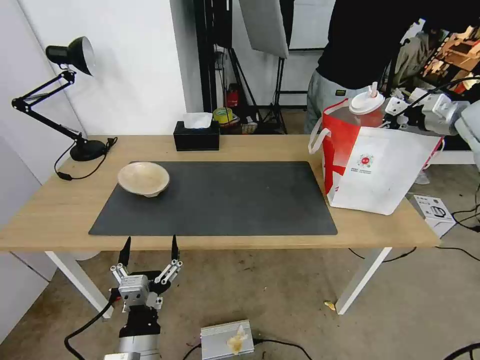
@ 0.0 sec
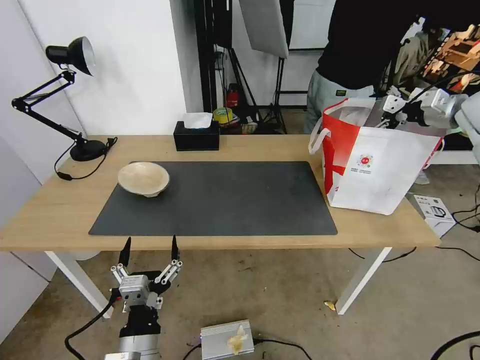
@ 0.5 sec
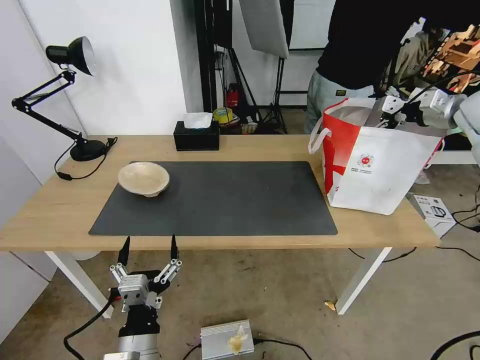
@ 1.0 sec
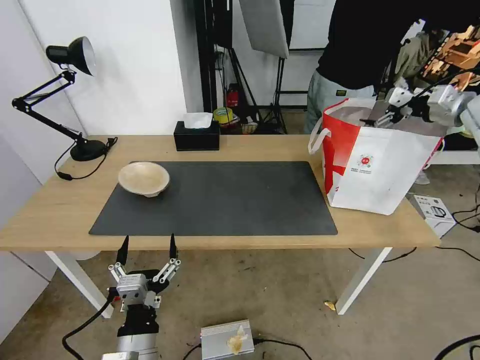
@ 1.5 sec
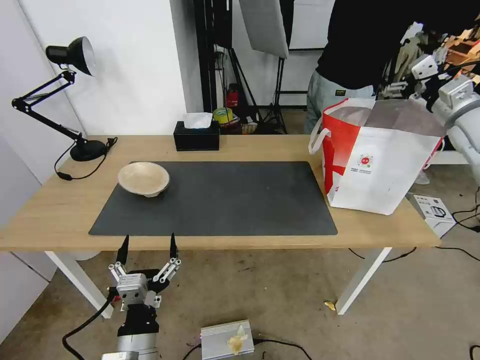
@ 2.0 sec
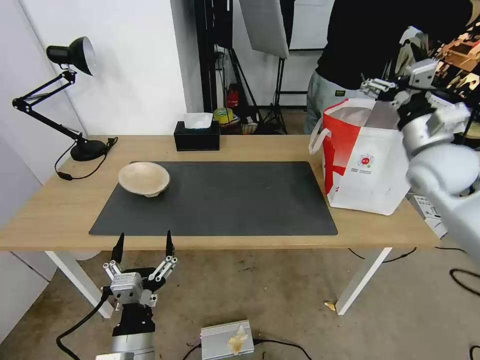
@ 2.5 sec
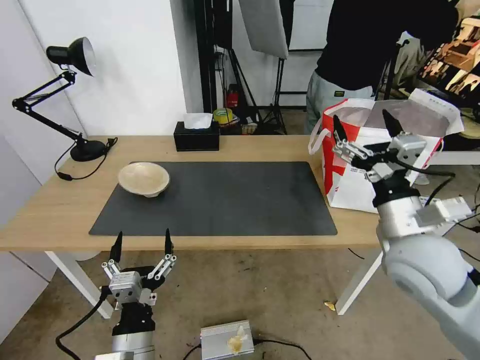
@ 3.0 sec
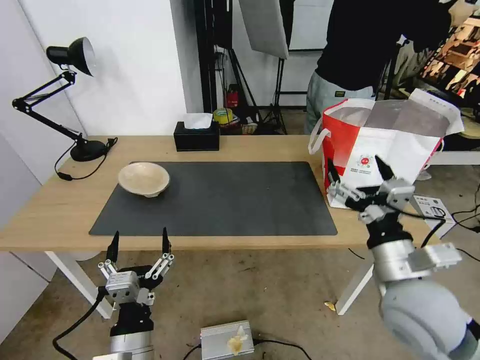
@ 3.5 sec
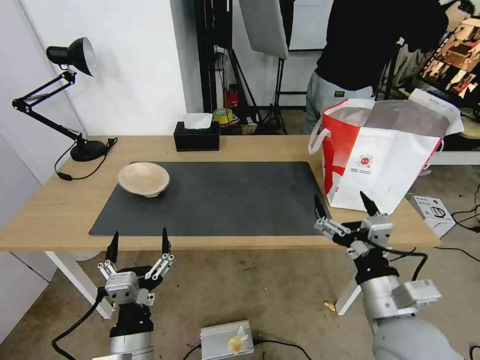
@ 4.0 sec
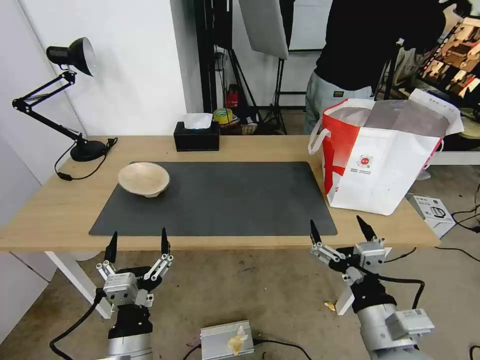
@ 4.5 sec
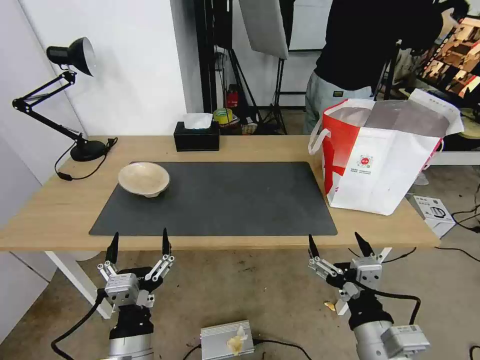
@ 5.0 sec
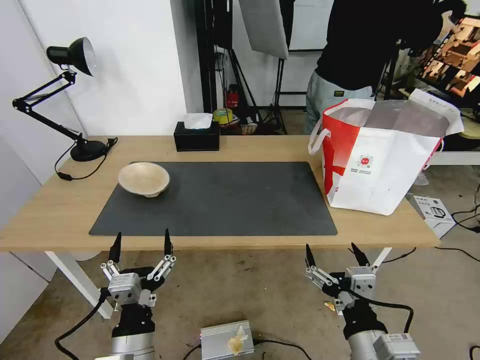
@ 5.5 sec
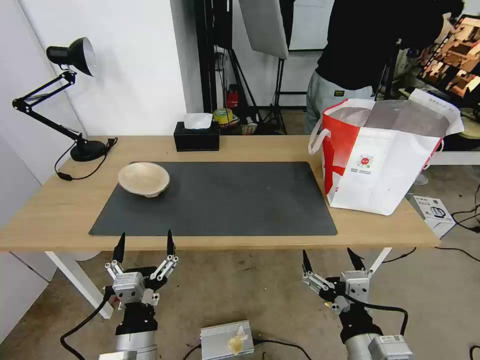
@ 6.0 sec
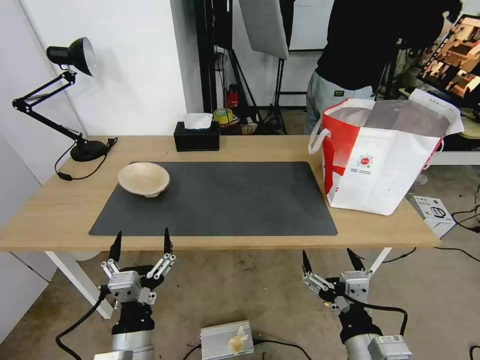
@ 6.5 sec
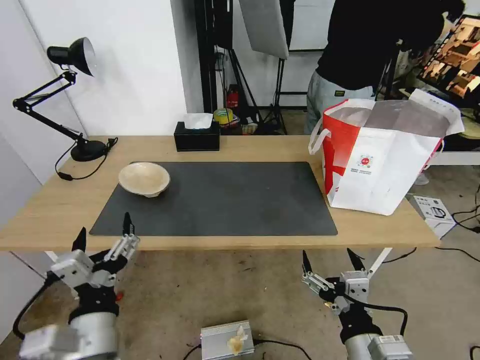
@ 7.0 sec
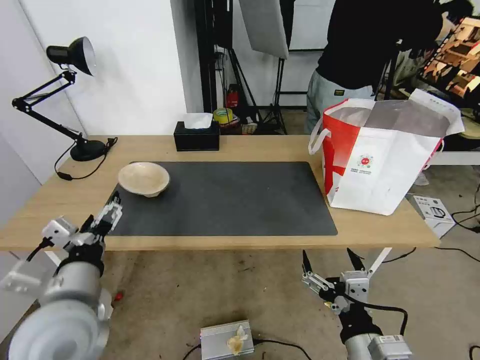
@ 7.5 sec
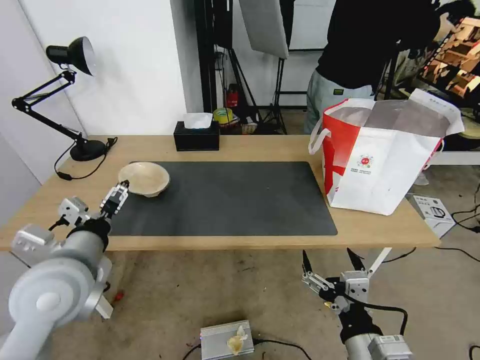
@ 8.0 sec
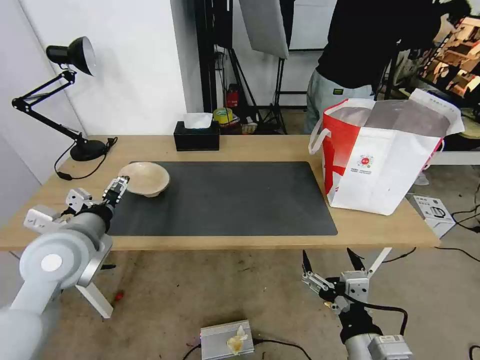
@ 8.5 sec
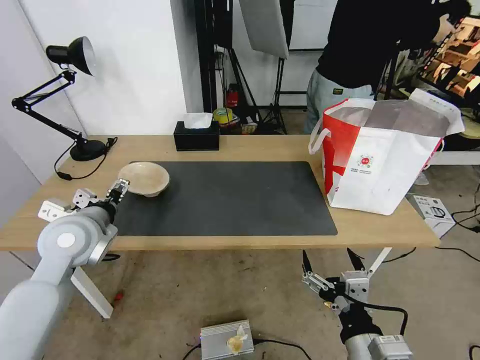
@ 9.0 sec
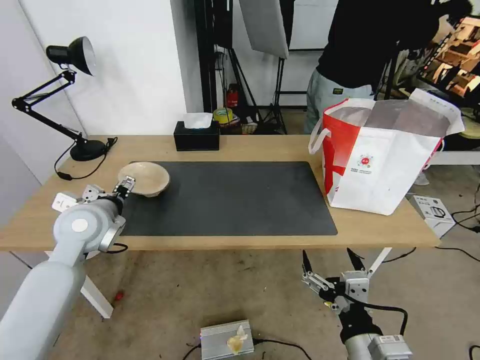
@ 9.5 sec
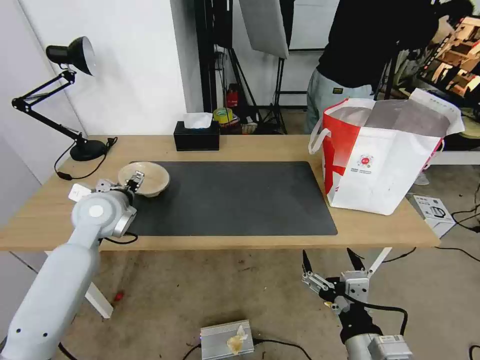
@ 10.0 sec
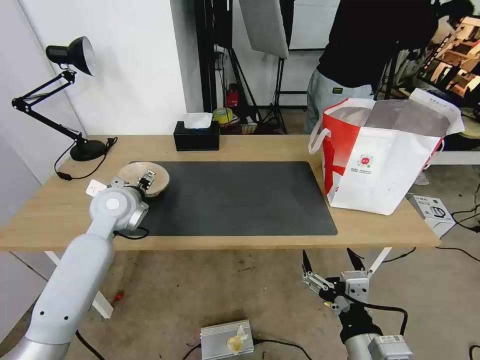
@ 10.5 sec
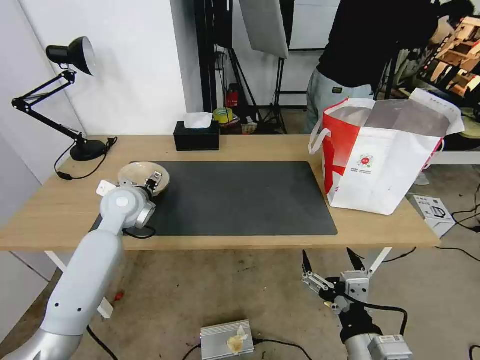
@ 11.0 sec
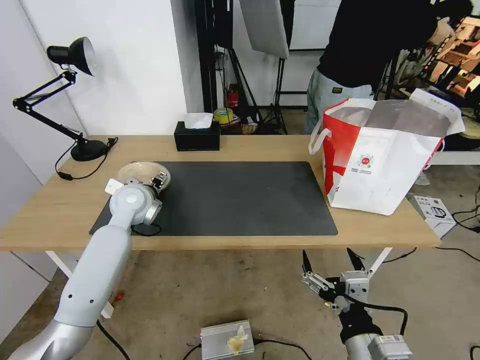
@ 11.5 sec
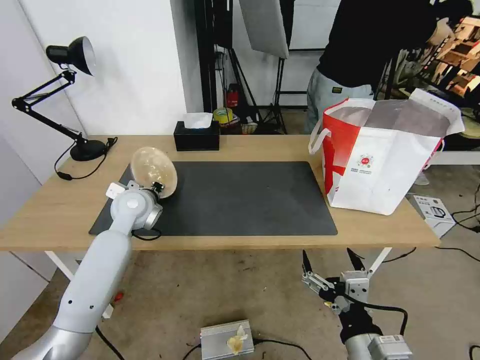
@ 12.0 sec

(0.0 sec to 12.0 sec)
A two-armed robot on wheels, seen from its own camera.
Task of the whole recording: Pick up the trash from the table and place it into the takeout bag.
2.0 sec - 4.0 sec: The right gripper travels backward, to the left and downward by some 40 cm.
4.0 sec - 6.0 sec: The right gripper is displaced backward by approximately 10 cm.
6.0 sec - 8.0 sec: The left gripper heads upward, forward and to the left, covering roughly 20 cm.
8.0 sec - 10.0 sec: The left gripper shifts roughly 15 cm forward.
10.0 sec - 12.0 sec: The left gripper travels forward by roughly 5 cm, and closes its fingers.

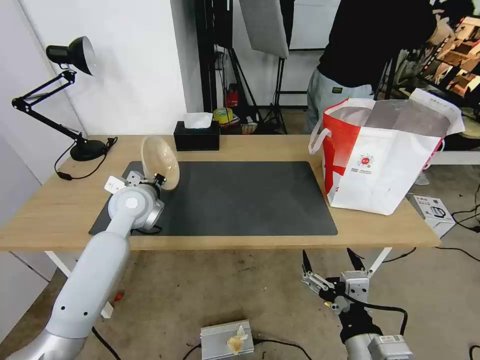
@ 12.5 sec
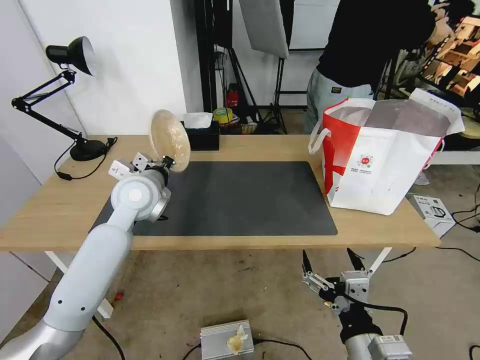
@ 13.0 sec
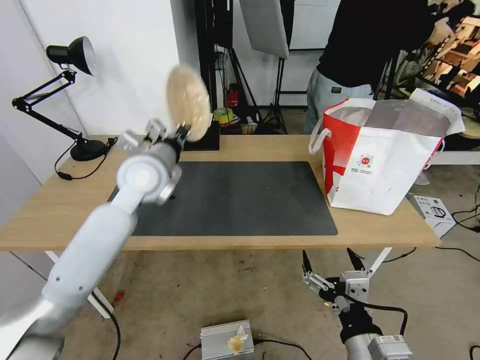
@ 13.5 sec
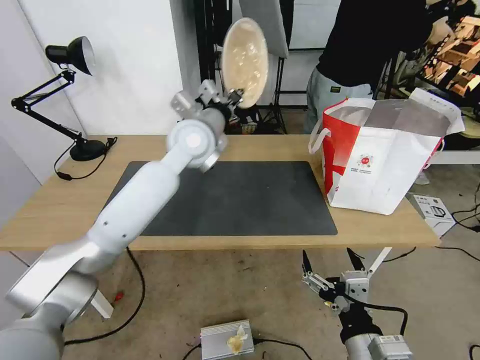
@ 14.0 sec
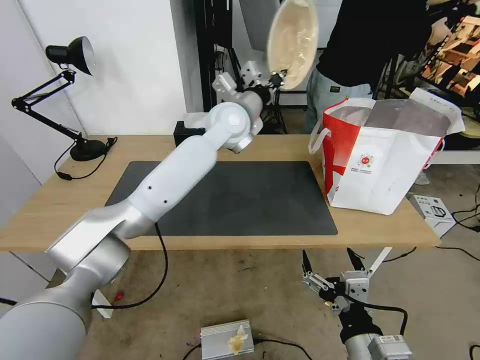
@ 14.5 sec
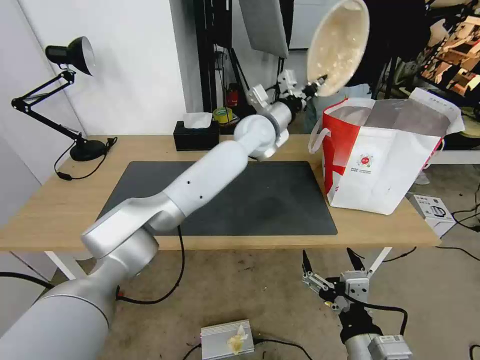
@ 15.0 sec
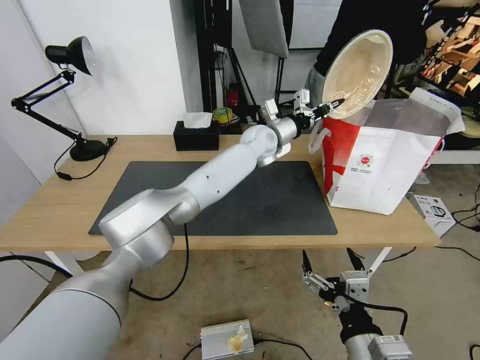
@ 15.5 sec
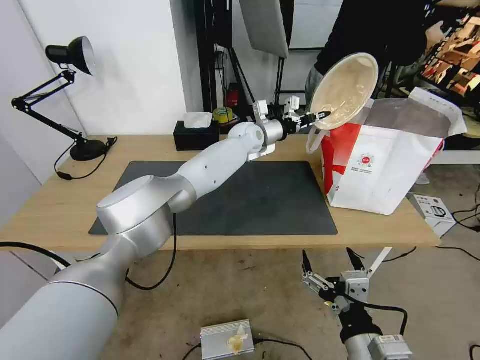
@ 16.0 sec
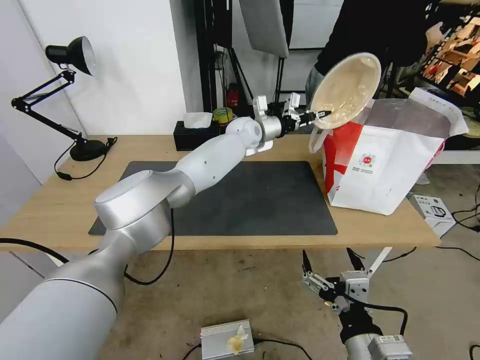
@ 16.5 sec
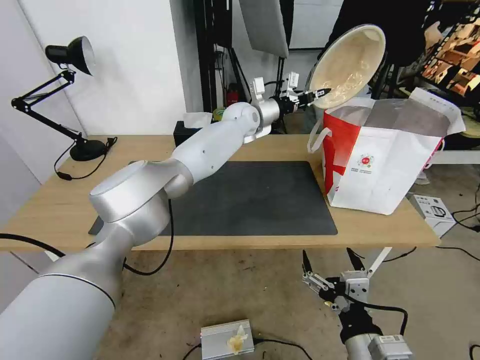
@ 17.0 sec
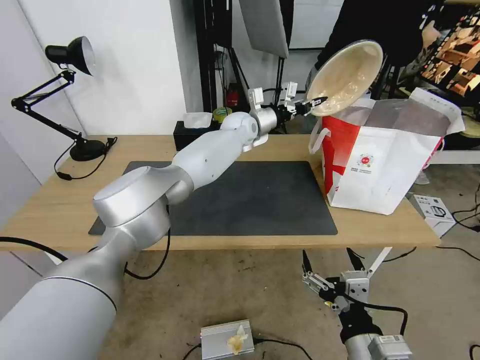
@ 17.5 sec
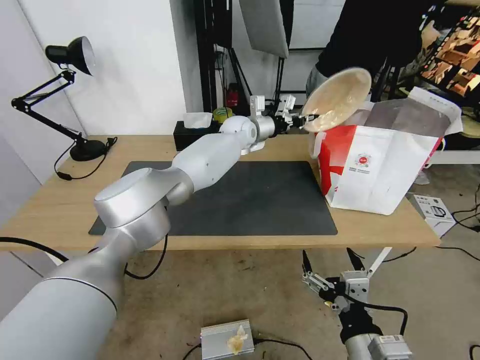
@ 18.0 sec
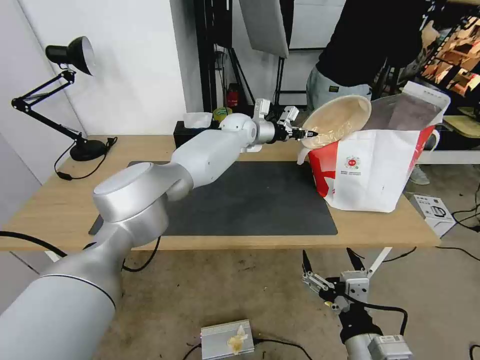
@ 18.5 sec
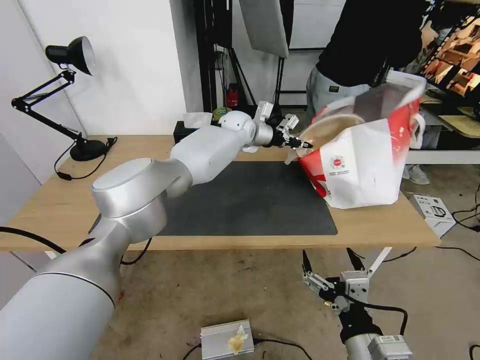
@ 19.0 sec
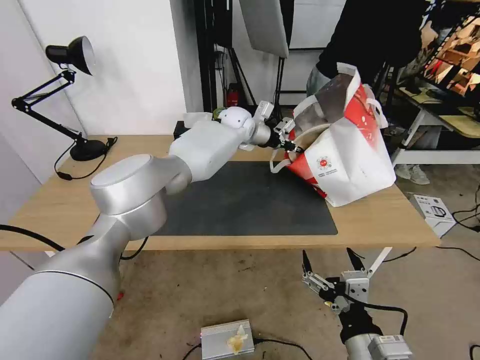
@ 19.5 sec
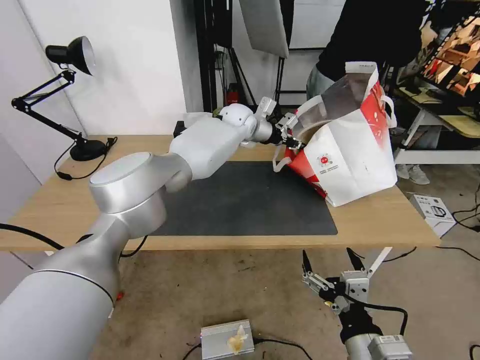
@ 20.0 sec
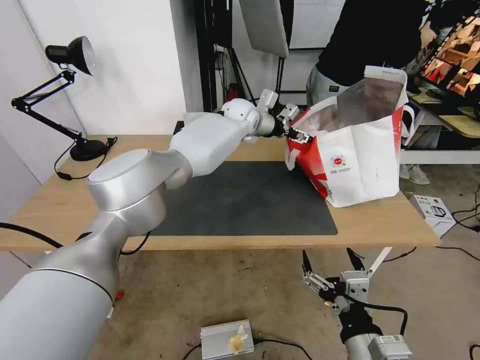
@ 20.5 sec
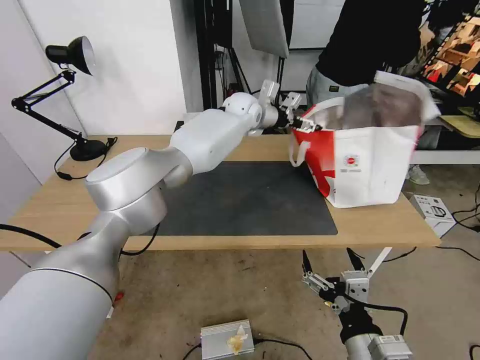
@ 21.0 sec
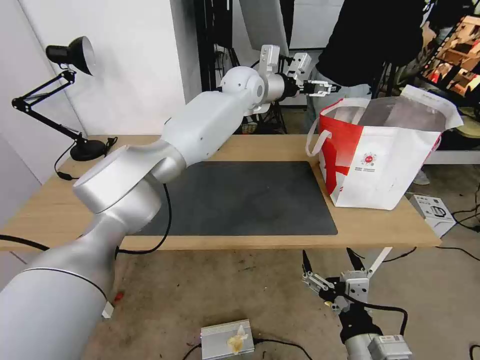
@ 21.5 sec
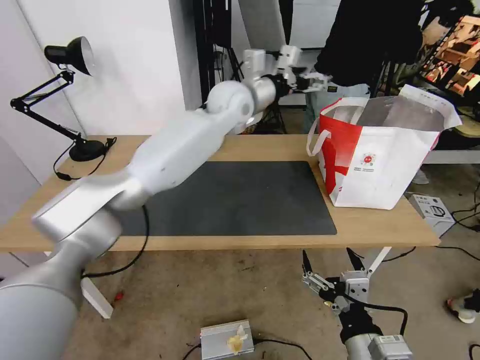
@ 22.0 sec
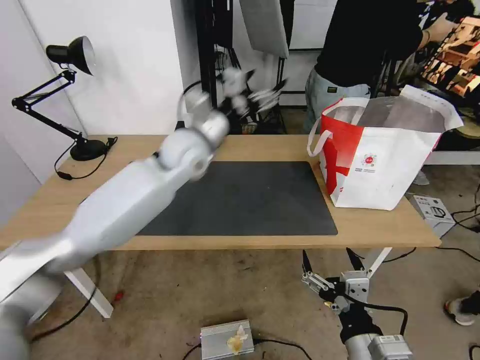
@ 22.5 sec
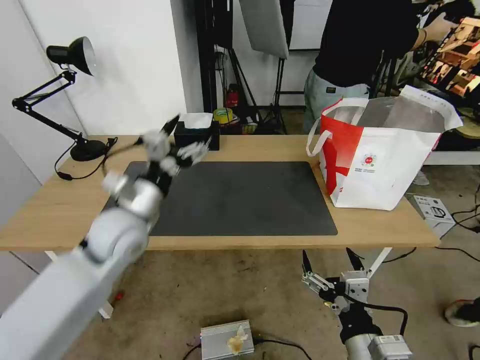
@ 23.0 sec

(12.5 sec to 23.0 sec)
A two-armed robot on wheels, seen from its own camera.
Task of the whole recording: Pick up the trash from the table and place it into the takeout bag.
12.5 sec - 14.5 sec: The left gripper goes roughly 30 cm to the right, upward and forward.
14.5 sec - 16.5 sec: The left gripper travels forward and downward by about 15 cm.
19.0 sec - 21.0 sec: The left gripper moves upward, approximately 5 cm, and opens up.
21.0 sec - 23.0 sec: The left gripper goes roughly 40 cm backward and to the left.

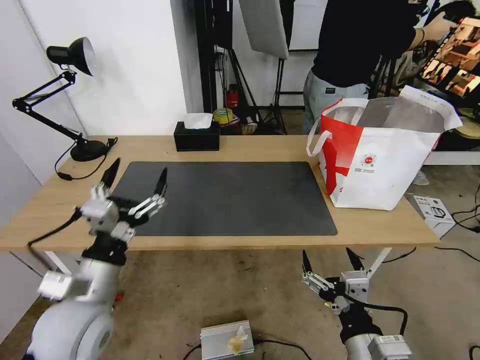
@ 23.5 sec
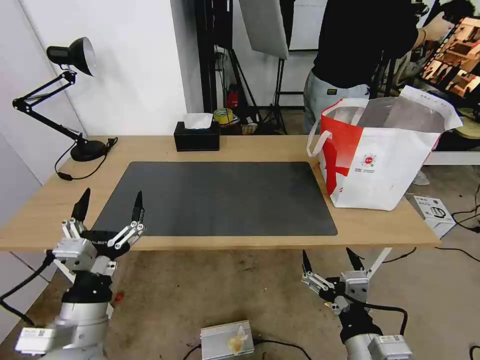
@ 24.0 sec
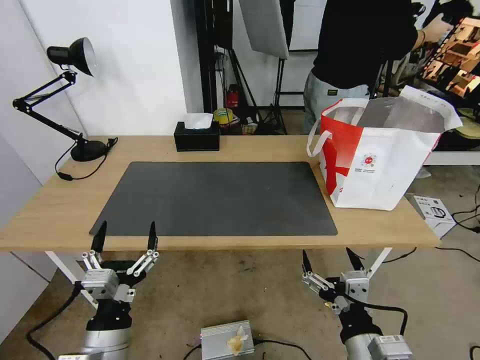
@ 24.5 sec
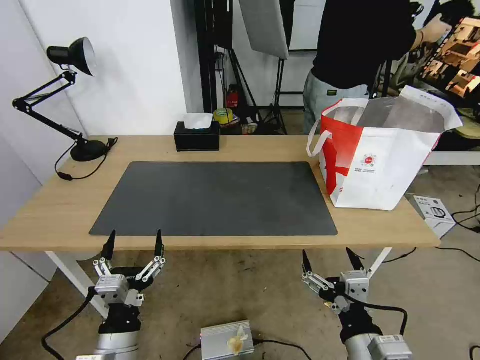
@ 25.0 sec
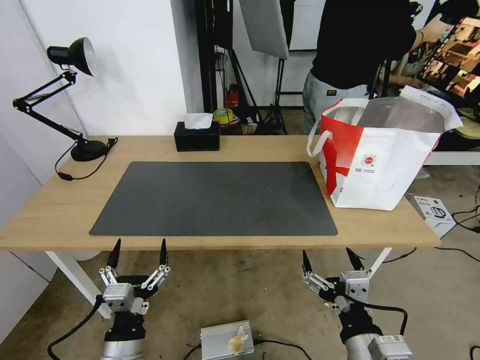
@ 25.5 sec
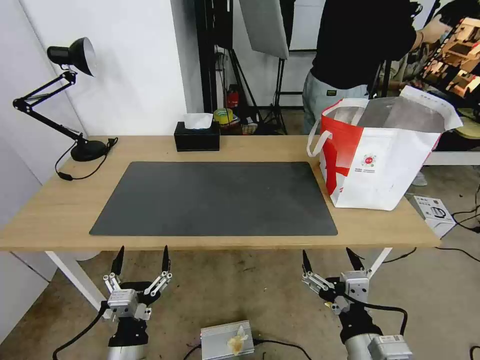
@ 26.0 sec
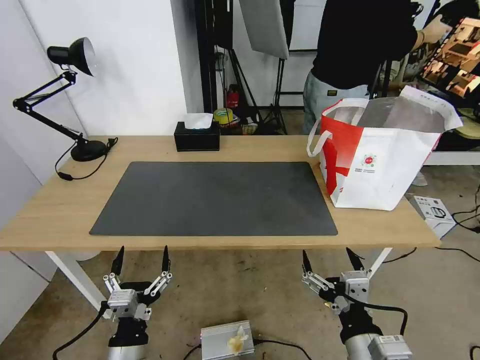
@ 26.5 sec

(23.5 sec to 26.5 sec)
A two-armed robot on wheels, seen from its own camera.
Task of the whole recording: Pick up the trash from the table and place it into the takeout bag.
23.5 sec - 25.0 sec: The left gripper travels downward and backward by about 15 cm.
25.0 sec - 26.5 sec: The grippers stay close to where they were, moving slightly.
